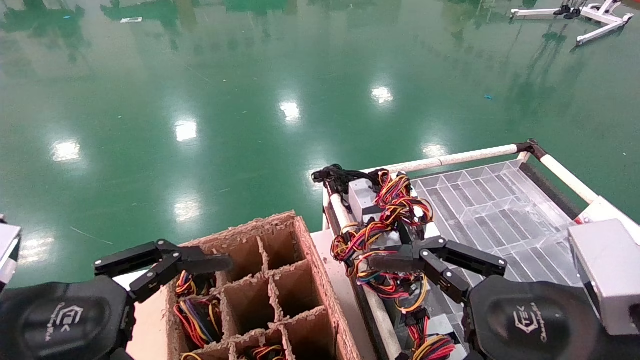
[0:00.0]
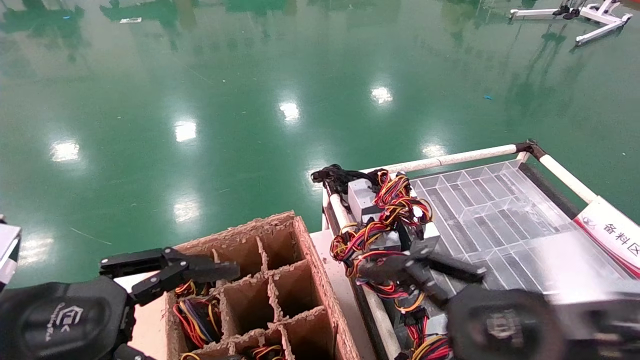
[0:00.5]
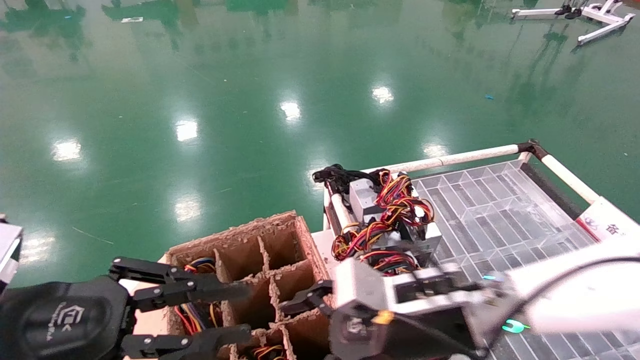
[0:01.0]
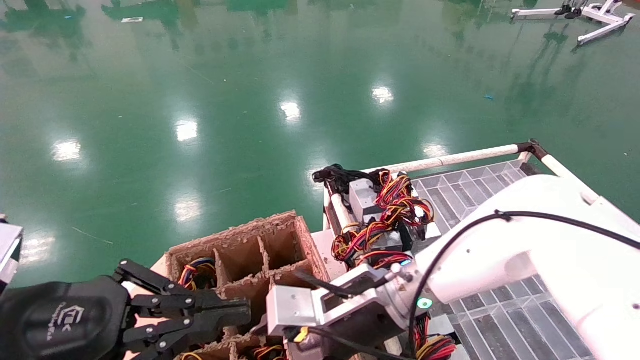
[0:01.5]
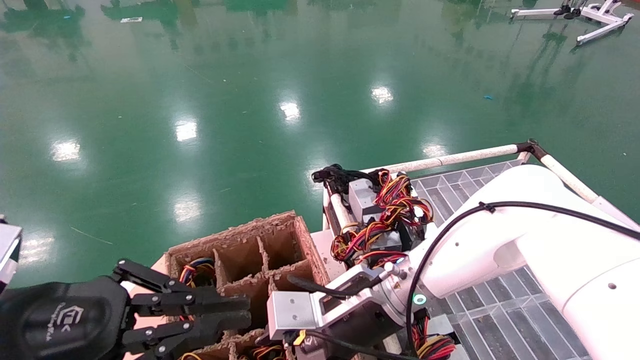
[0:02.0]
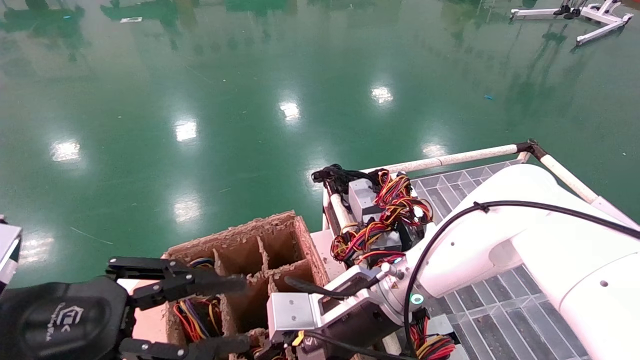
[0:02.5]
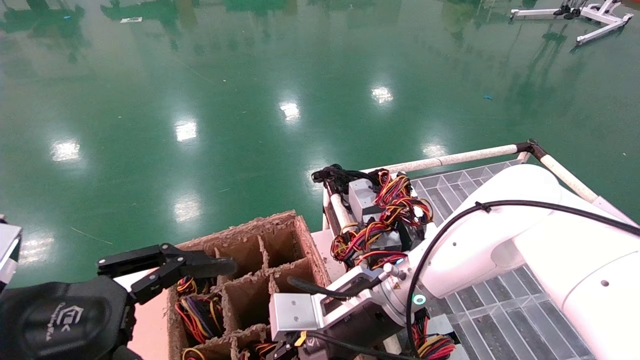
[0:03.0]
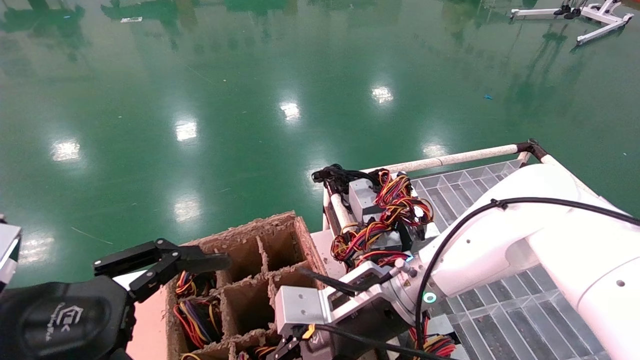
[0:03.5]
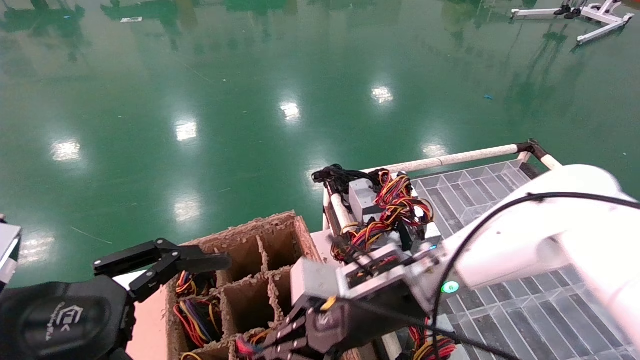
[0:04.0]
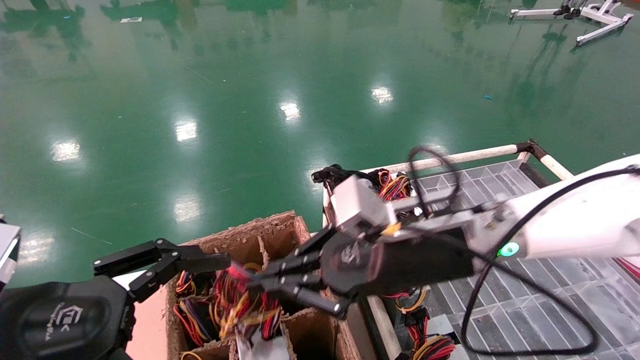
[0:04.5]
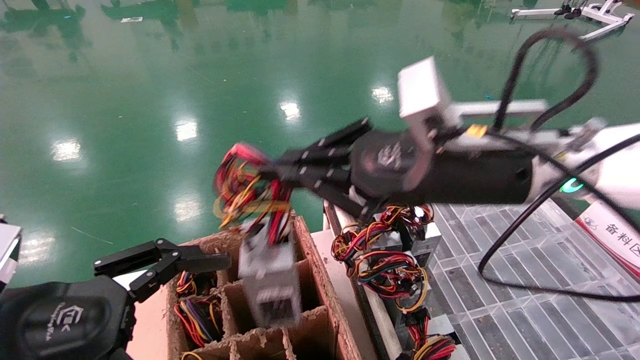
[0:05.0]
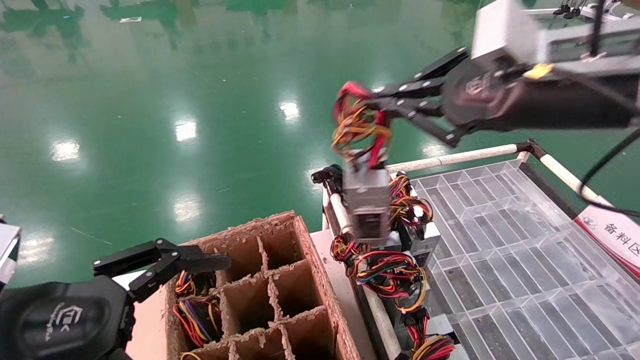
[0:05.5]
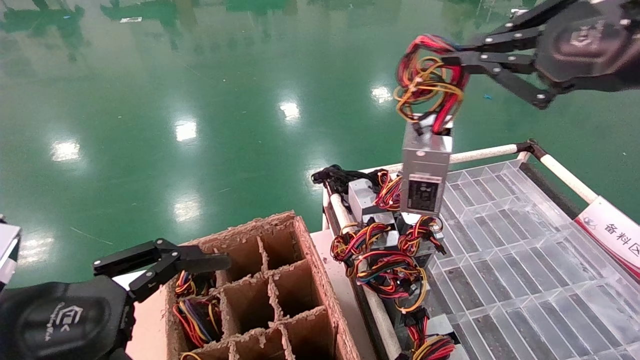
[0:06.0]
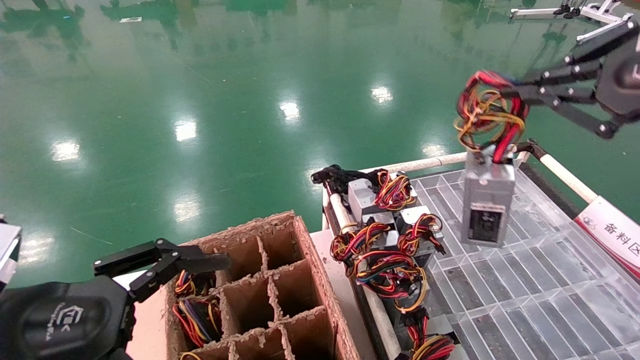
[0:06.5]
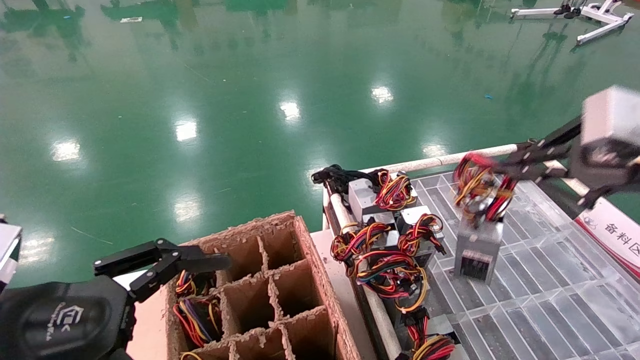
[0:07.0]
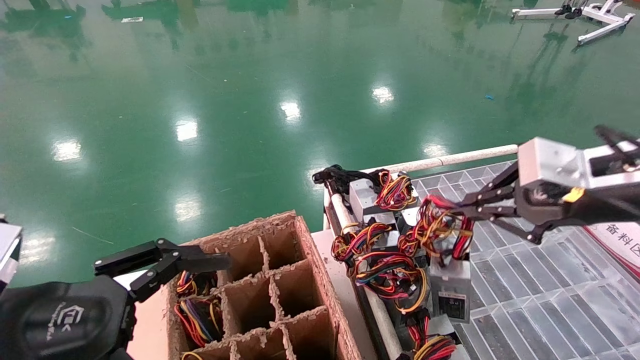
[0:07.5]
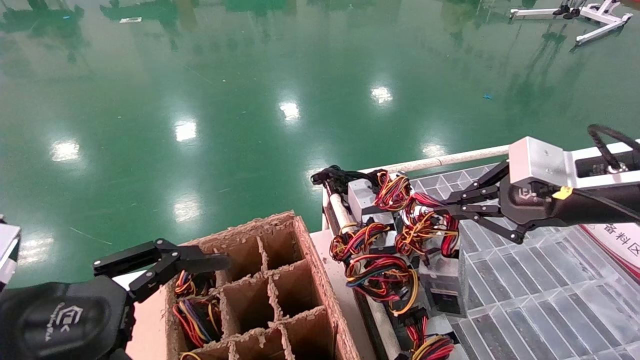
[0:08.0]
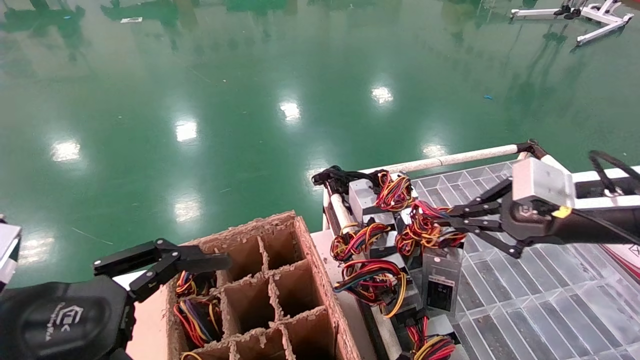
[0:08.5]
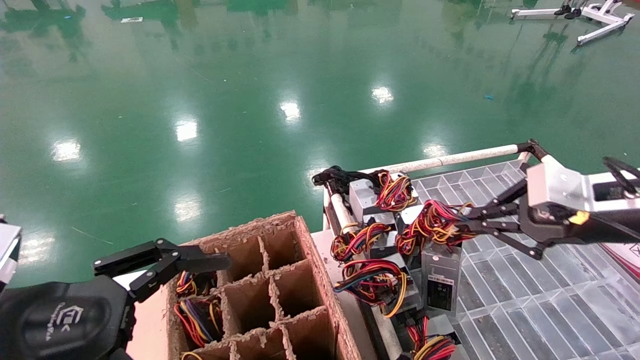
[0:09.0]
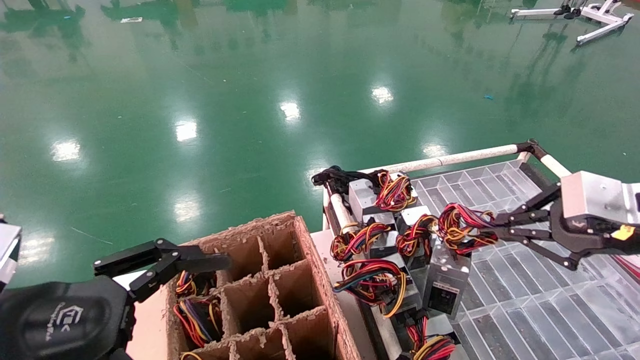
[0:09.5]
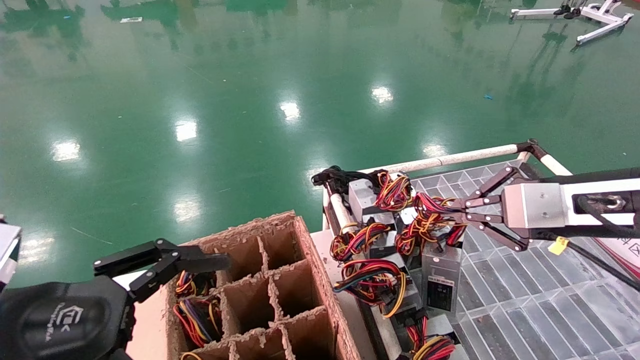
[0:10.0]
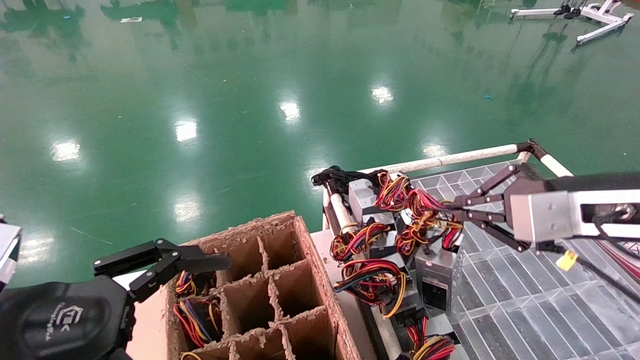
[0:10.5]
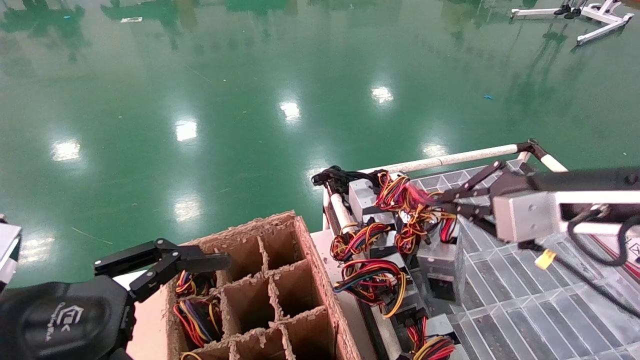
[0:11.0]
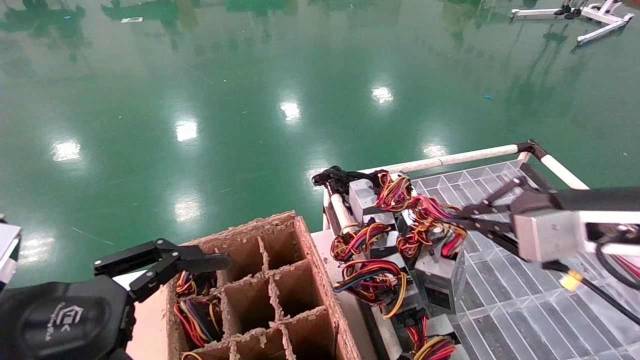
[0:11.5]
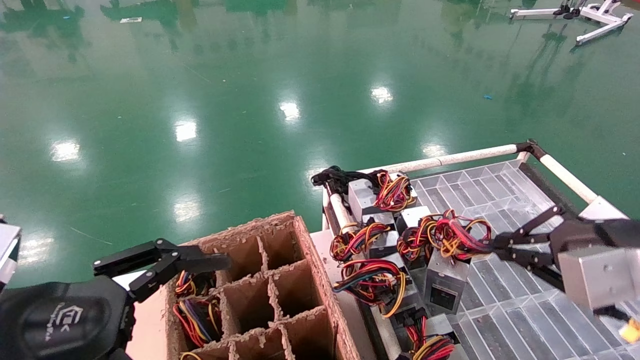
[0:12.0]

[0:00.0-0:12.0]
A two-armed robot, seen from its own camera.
Step, 0:01.0 to 0:03.5: Grab and lift the power supply from the large box.
0:00.0 to 0:02.0: The right gripper is displaced to the left and forward by some 25 cm. The left gripper closes.
0:02.0 to 0:04.0: The left gripper opens, while the right gripper closes.
0:04.0 to 0:06.0: The right gripper moves upward, to the right and backward, roughly 35 cm.
0:06.0 to 0:08.0: The right gripper moves downward and forward, about 15 cm.
0:08.0 to 0:10.0: The grippers move only a little.
0:10.0 to 0:12.0: The right gripper shifts by approximately 5 cm.

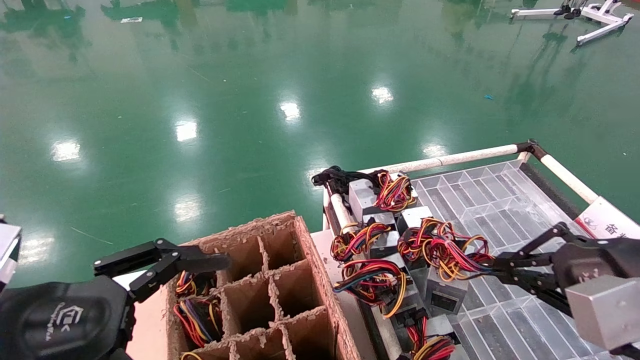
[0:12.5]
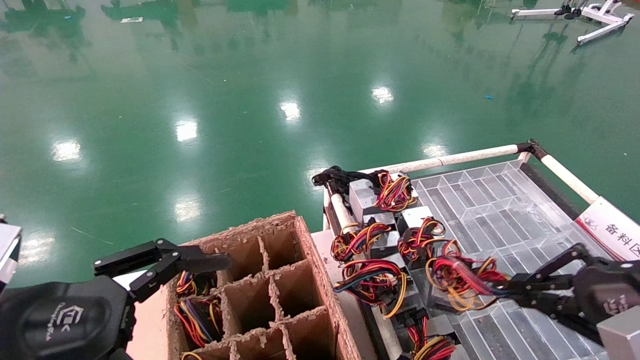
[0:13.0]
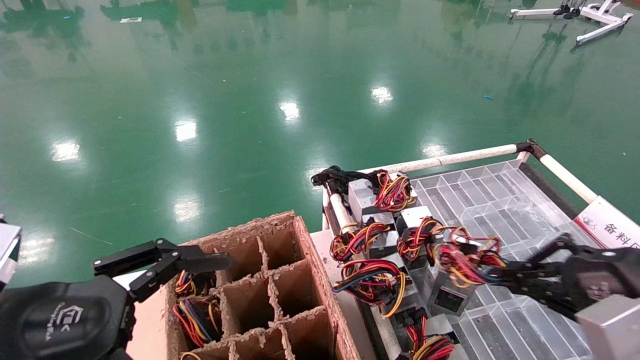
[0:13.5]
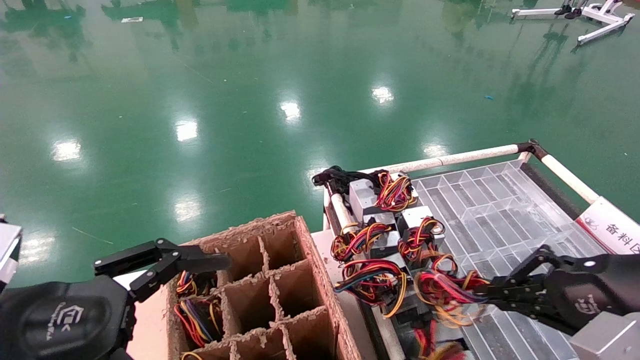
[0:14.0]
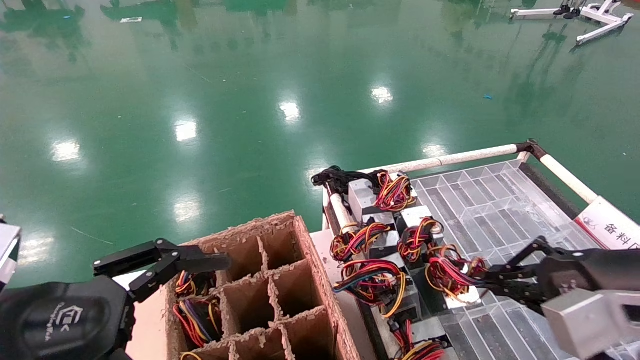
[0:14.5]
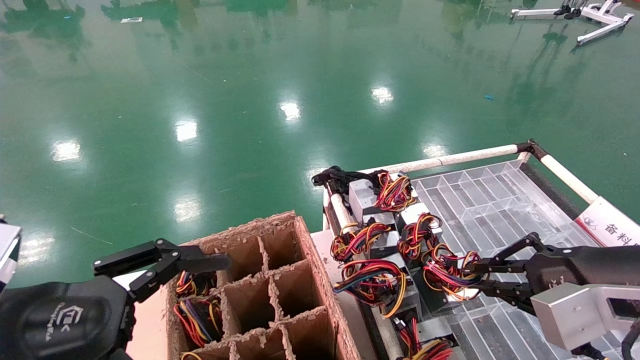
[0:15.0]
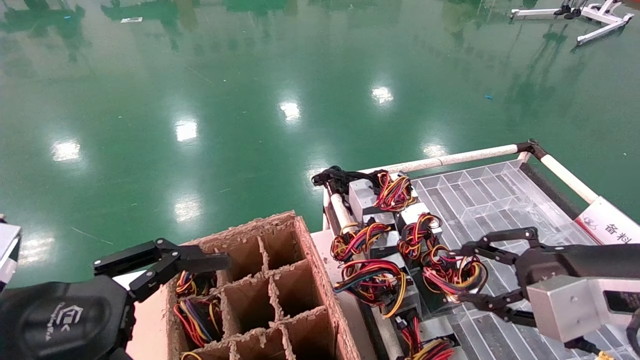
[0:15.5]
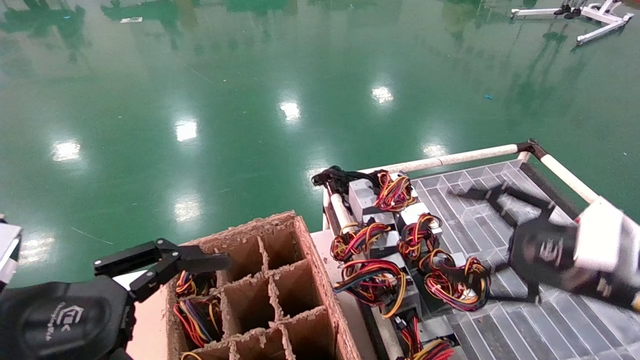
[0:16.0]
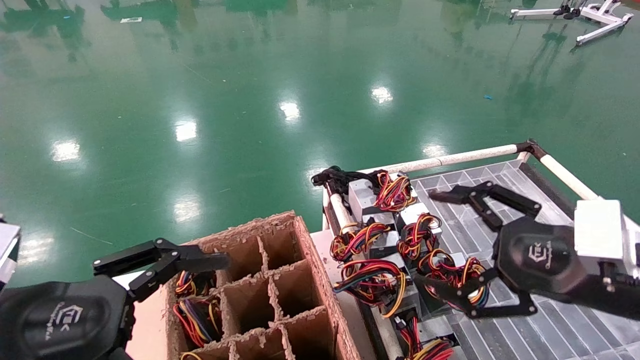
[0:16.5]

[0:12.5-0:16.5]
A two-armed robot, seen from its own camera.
Step, 0:12.5 to 0:15.0: Place the power supply on the operating table.
0:12.5 to 0:14.5: The grippers stay close to where they were, moving slightly.
0:14.5 to 0:16.5: The right gripper opens.
